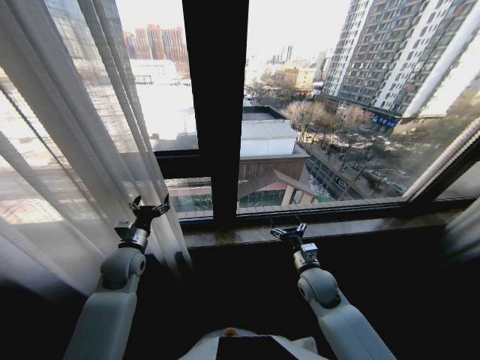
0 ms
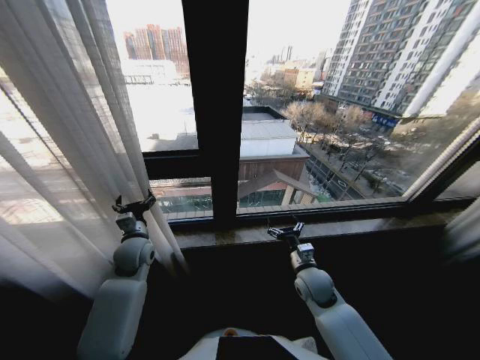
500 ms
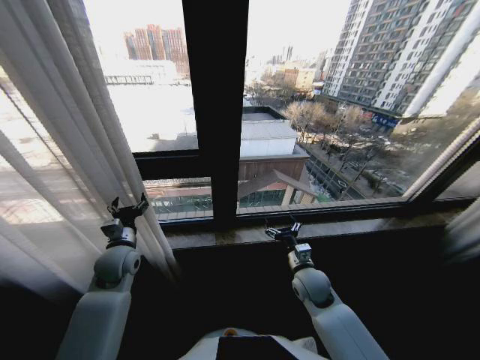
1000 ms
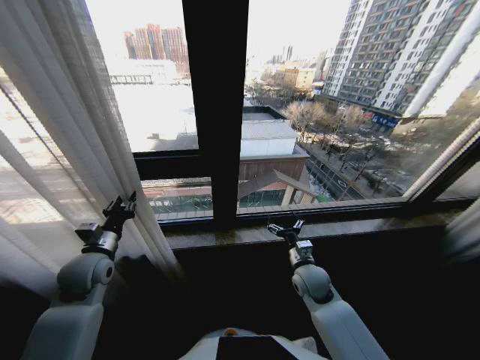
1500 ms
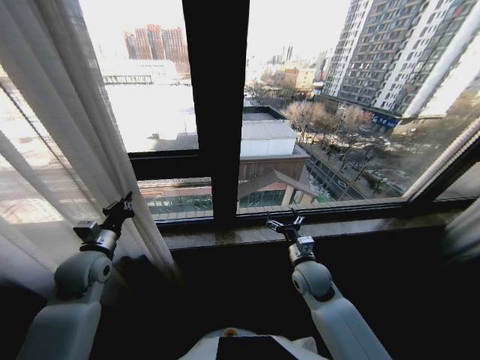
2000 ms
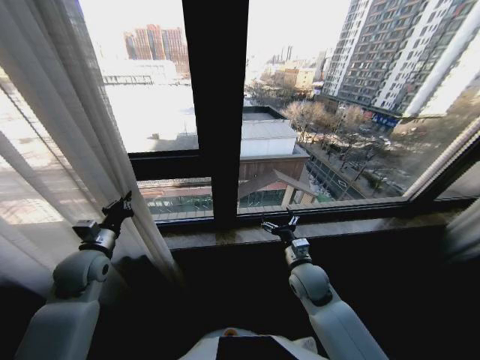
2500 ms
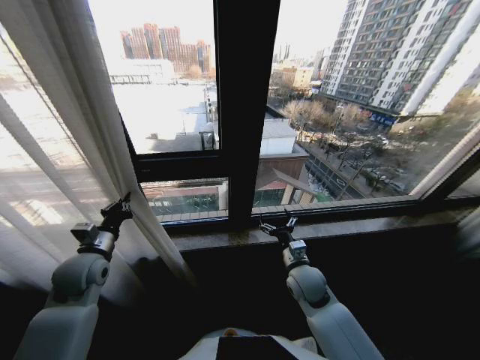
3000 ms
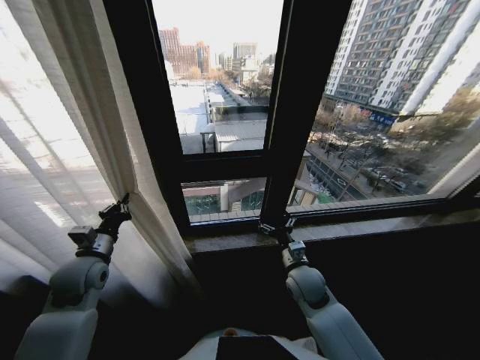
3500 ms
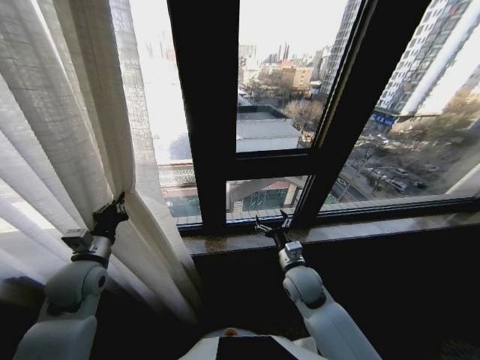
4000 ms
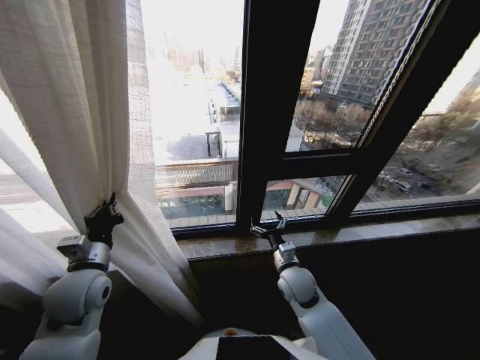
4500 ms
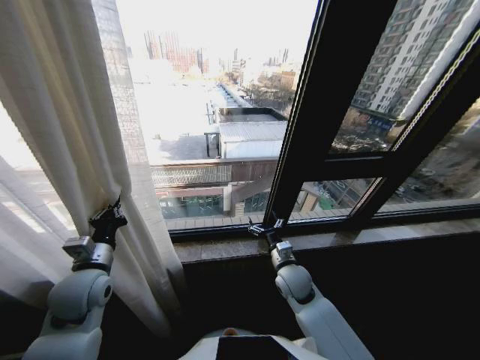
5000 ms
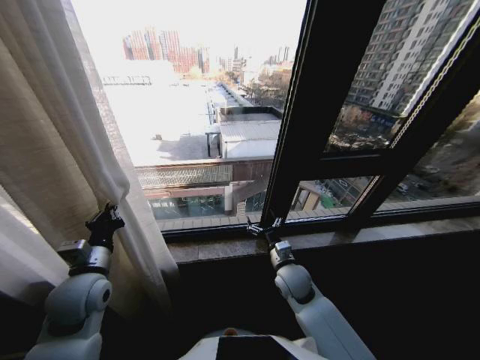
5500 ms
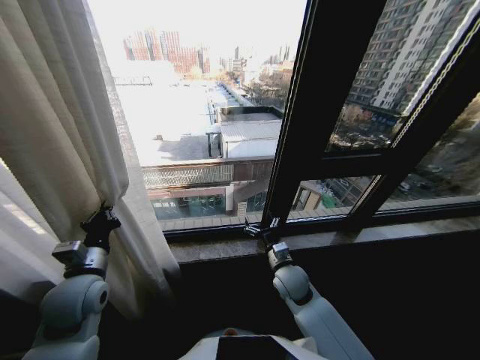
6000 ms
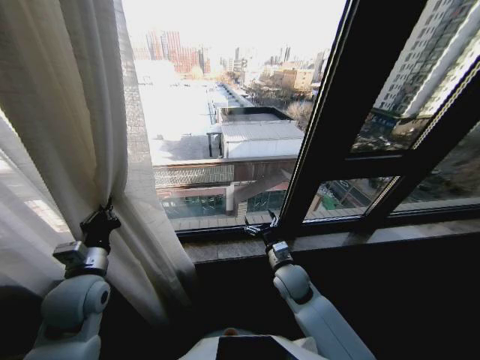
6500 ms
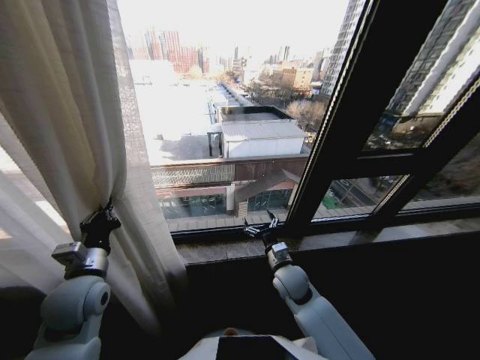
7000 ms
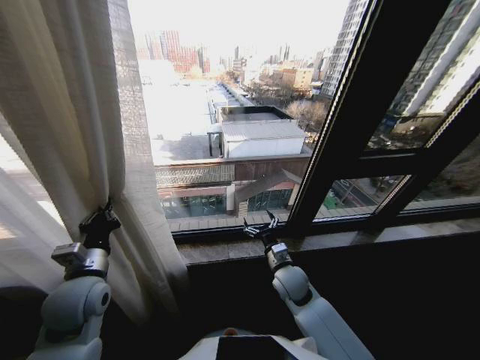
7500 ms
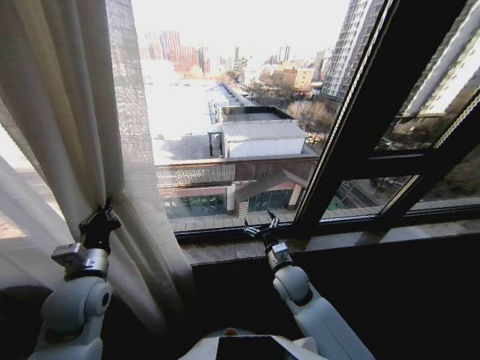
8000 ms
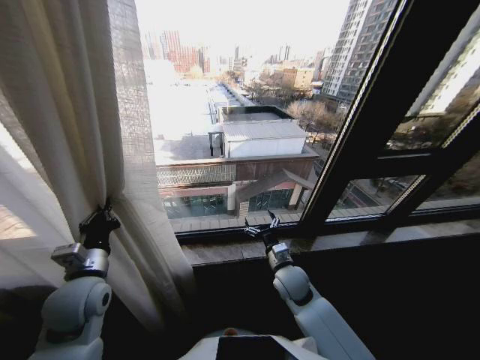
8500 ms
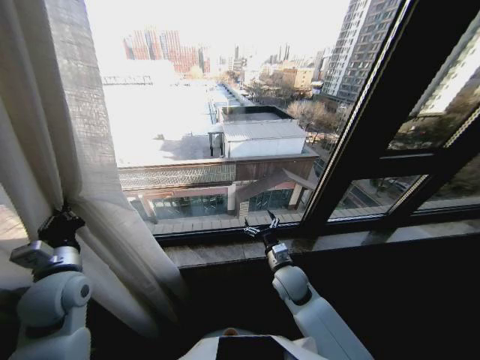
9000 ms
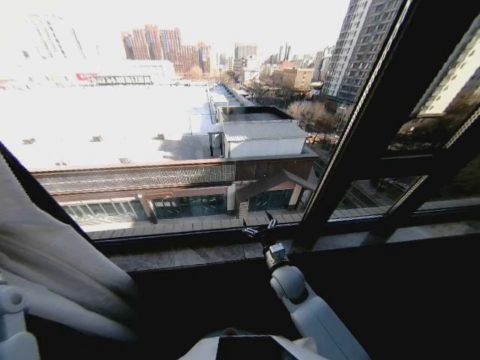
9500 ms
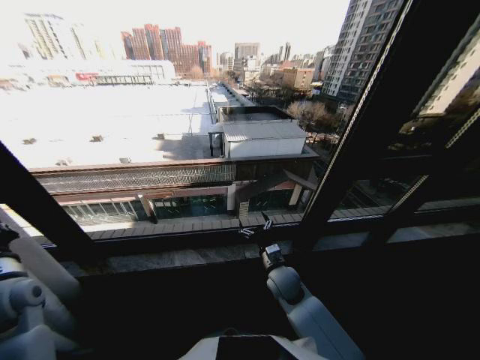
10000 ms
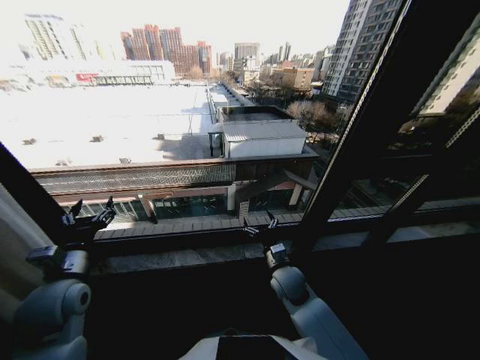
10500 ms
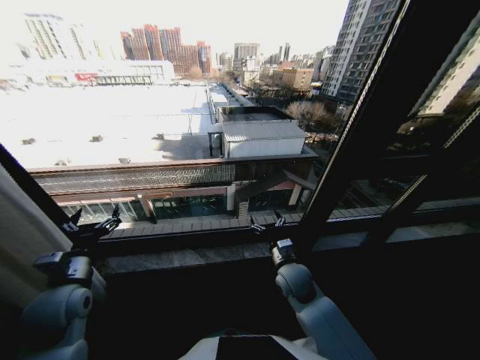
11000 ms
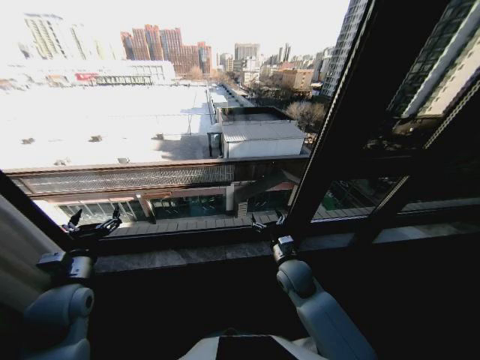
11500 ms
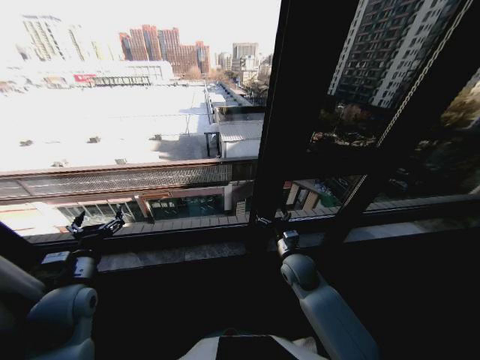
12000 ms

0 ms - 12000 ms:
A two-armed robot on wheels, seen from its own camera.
Task of the whole recording: Open the curtains by pulling them apart, changing their state from closed to fully open.
0 ms - 2000 ms: The left gripper is displaced to the left by approximately 5 cm, and closes.
8000 ms - 10000 ms: The left gripper moves to the left, some 15 cm.
10000 ms - 12000 ms: The left gripper heads to the right, covering about 10 cm, and opens its fingers. The right gripper changes place by approximately 5 cm.
